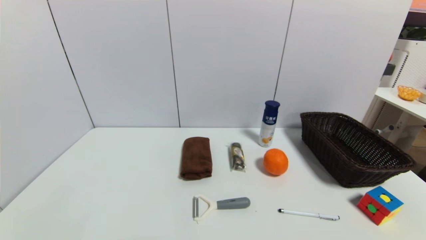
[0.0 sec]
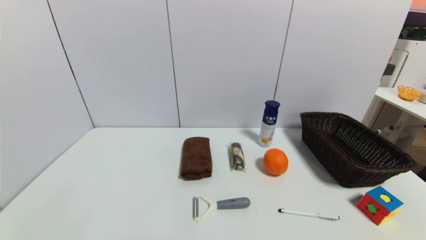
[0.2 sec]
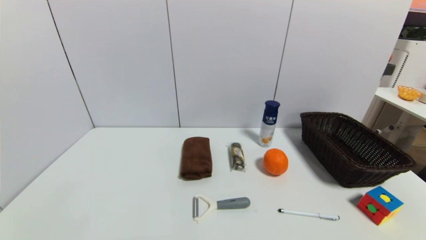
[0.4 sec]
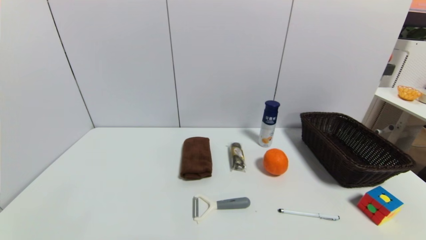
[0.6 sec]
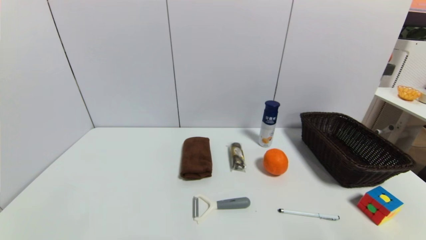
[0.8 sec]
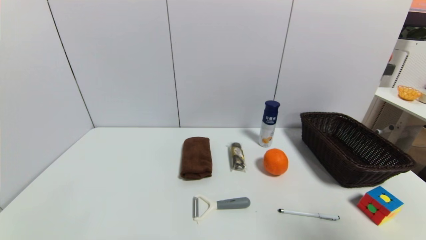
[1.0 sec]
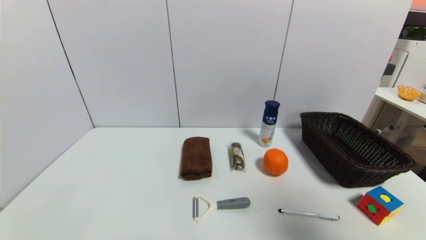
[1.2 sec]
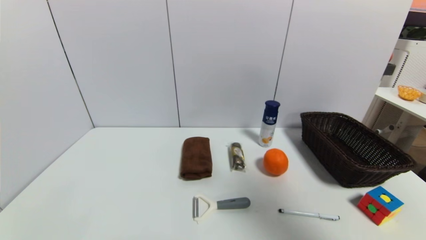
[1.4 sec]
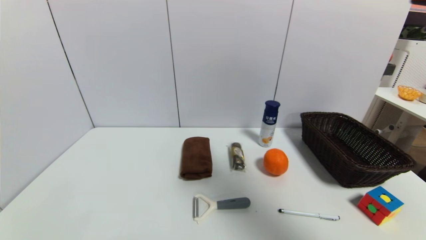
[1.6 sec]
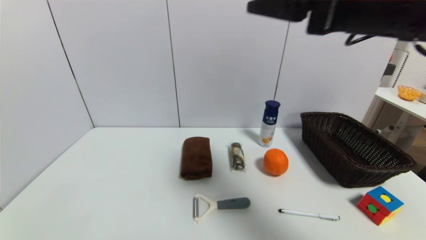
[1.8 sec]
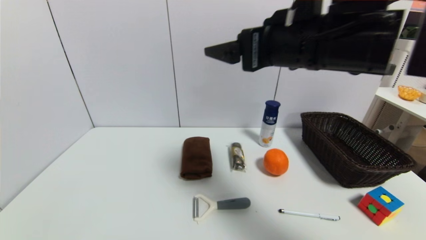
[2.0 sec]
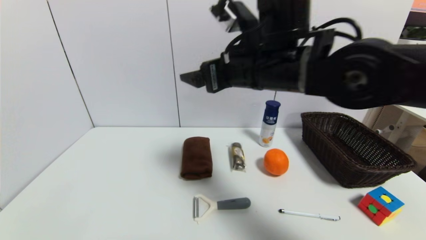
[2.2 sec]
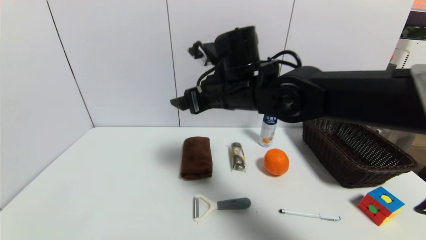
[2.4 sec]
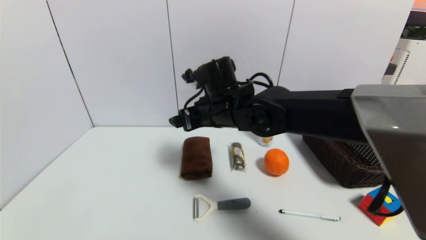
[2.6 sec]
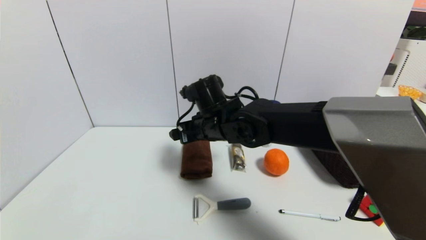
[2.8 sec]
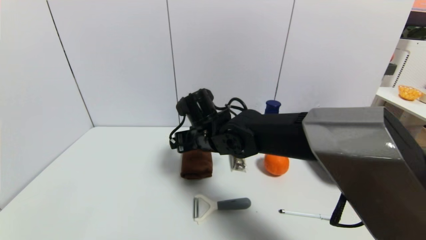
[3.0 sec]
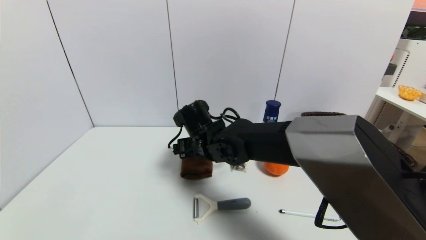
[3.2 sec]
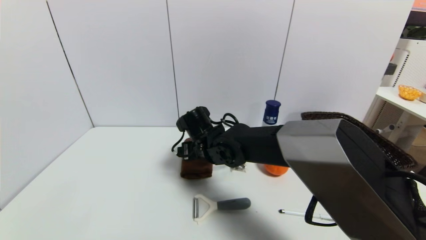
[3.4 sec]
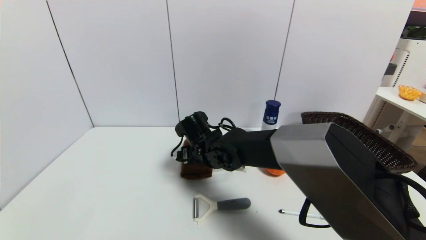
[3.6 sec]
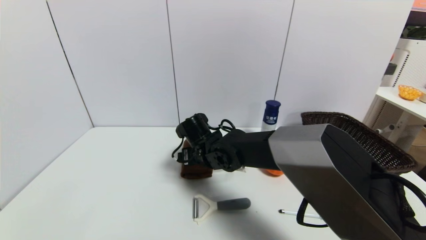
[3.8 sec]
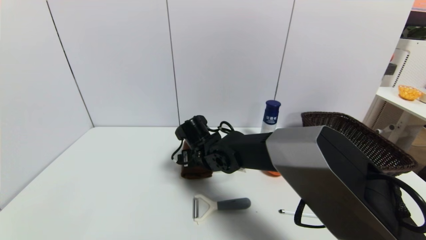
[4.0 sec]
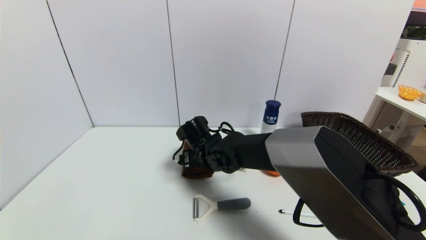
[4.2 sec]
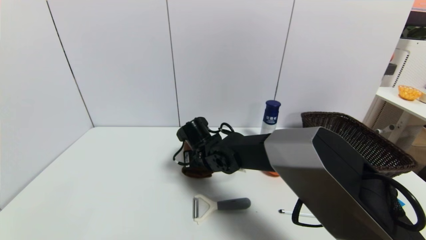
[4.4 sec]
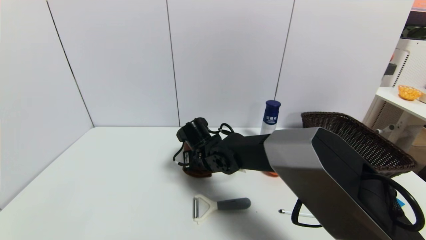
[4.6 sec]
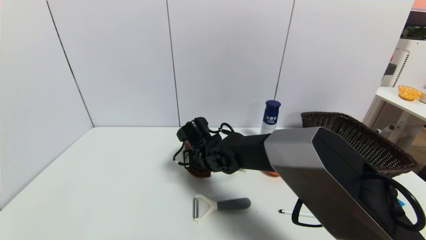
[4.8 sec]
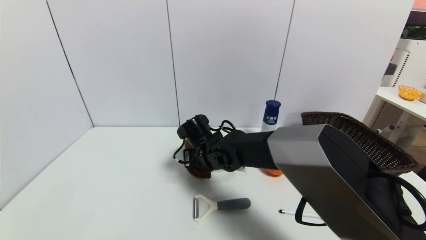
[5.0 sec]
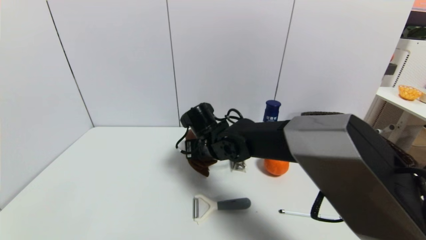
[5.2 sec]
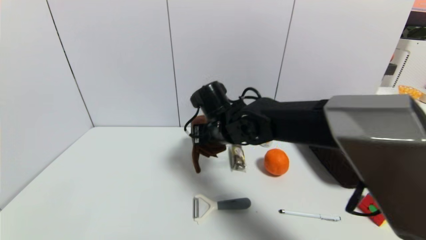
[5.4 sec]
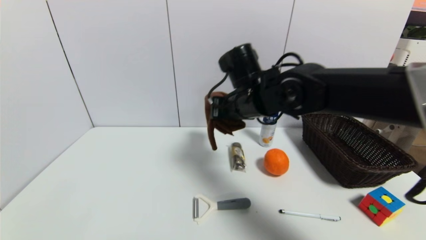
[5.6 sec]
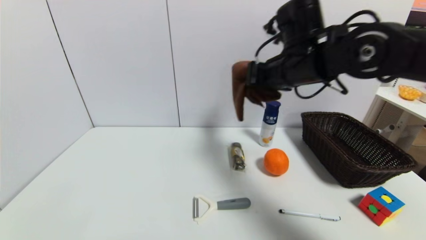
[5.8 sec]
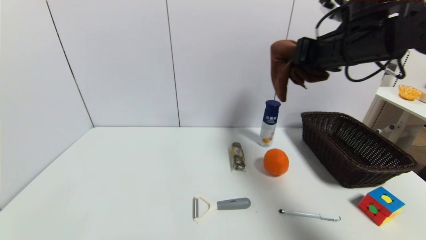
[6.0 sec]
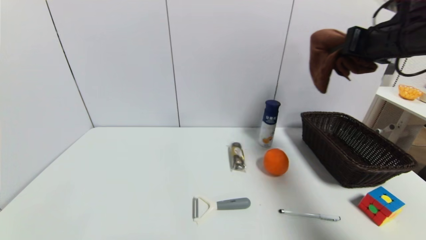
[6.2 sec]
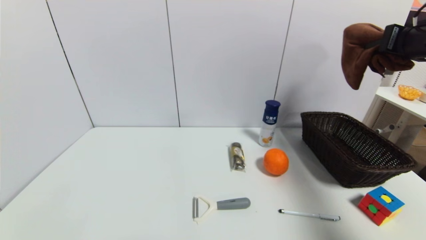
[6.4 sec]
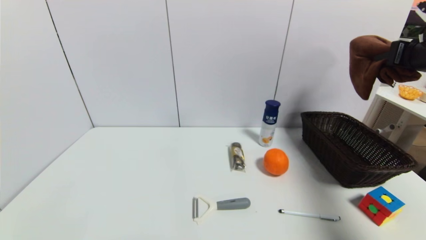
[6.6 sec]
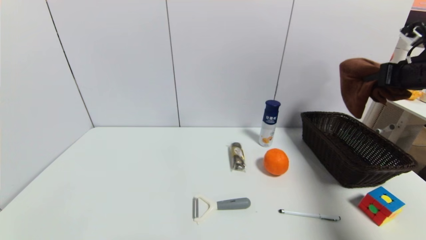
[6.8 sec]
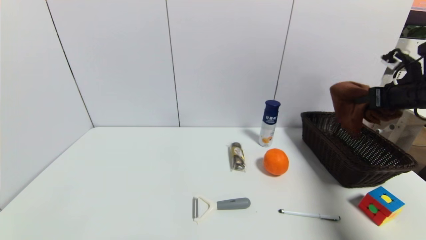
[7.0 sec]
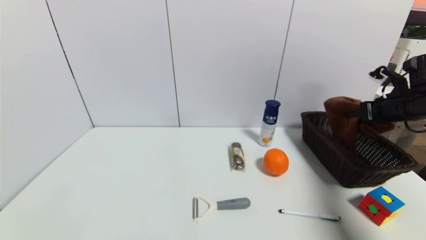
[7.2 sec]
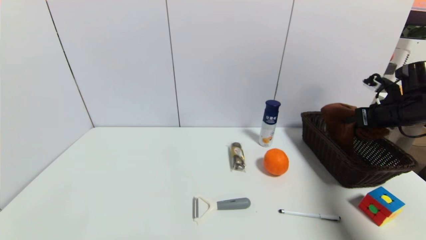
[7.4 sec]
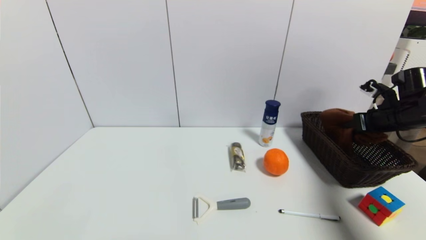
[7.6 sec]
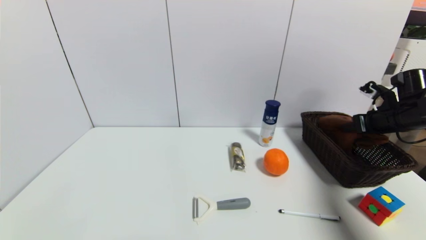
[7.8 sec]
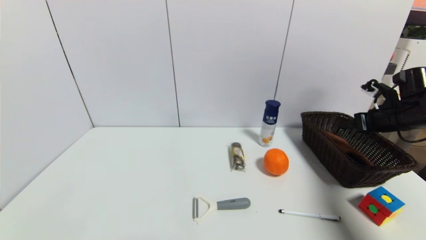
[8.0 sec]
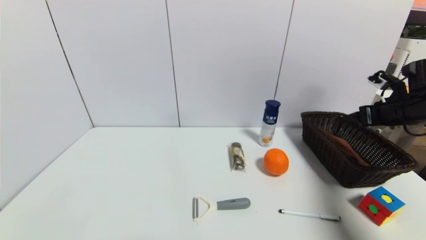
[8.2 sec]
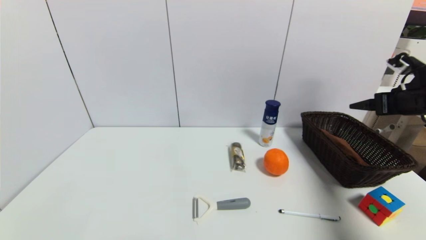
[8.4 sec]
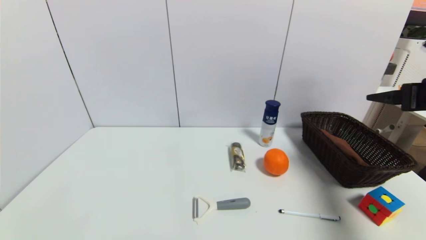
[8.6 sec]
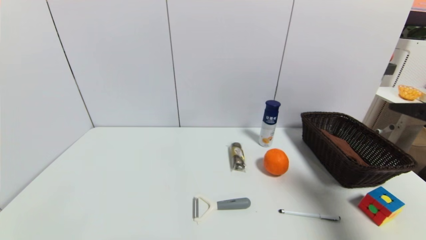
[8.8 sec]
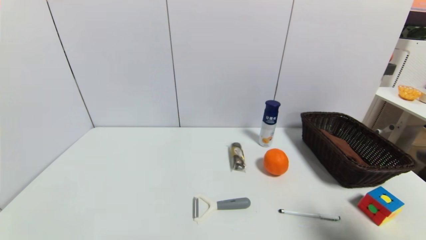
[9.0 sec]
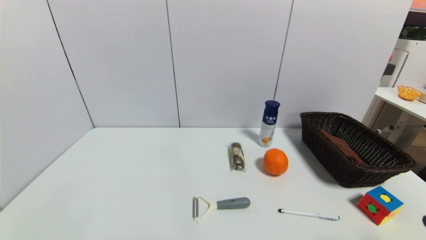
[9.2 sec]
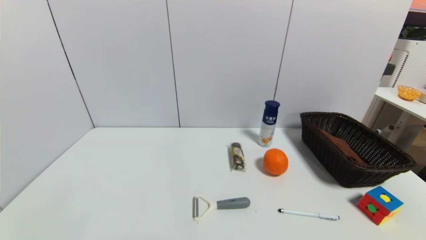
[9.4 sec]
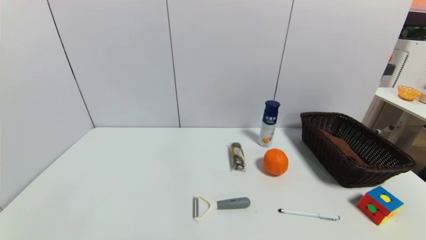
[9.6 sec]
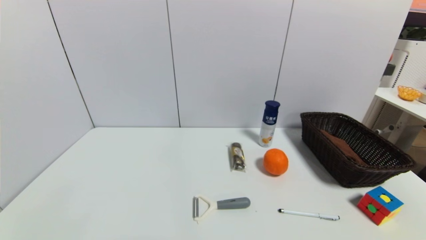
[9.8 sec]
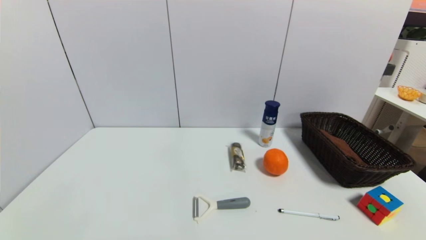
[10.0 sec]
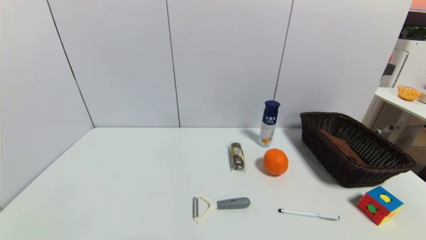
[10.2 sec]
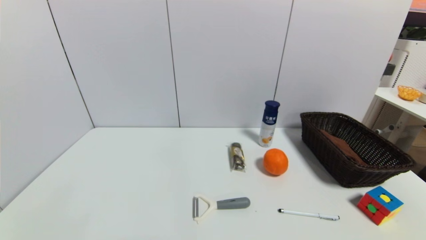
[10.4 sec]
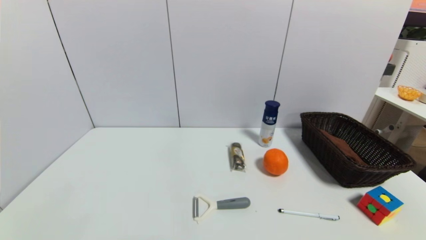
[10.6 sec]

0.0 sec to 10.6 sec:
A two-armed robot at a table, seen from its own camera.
Task of the whole recording: use a gripper to pick the target object and place on the brown basket.
Step, 0.0 sec to 4.8 sec: Grasp the brown towel with the right gripper.
Step, 5.0 sec to 8.0 sec: Place the brown towel into the basket with the right gripper.
0.0 sec to 1.6 sec: The right gripper is displaced upward and forward by roughly 40 cm.
1.6 sec to 3.0 sec: The right gripper shifts some 40 cm downward, to the left and forward.
3.0 sec to 4.6 sec: The right gripper moves downward, approximately 10 cm, and closes up.
4.6 sec to 6.0 sec: The right gripper goes approximately 35 cm to the right and upward, and closes up.
6.0 sec to 7.6 sec: The right gripper is displaced to the right and downward by about 25 cm.
7.6 sec to 9.0 sec: The right gripper travels backward by some 30 cm, and opens up.
9.0 sec to 10.6 sec: The right gripper is displaced downward and backward by roughly 20 cm.

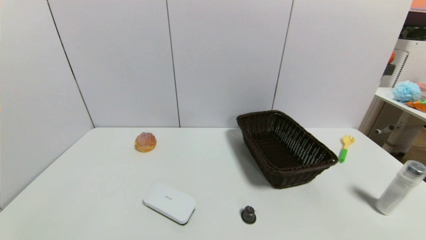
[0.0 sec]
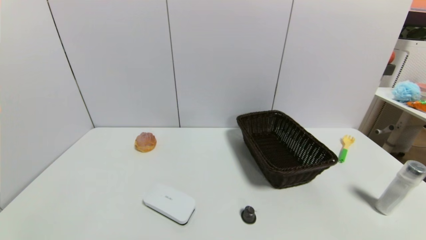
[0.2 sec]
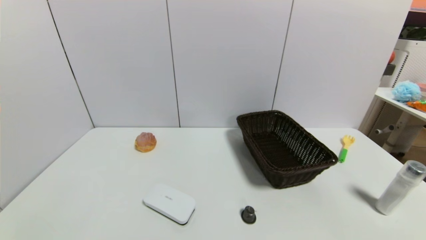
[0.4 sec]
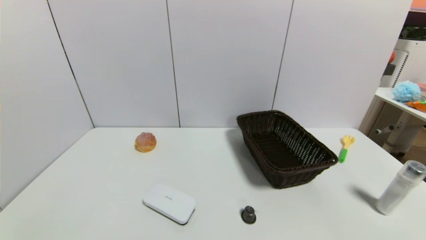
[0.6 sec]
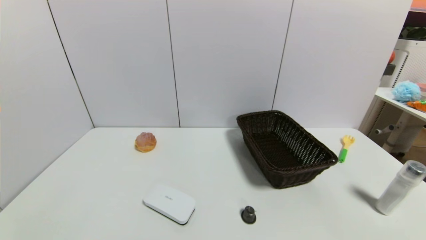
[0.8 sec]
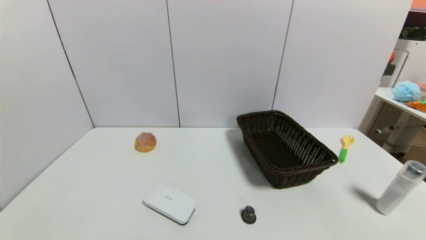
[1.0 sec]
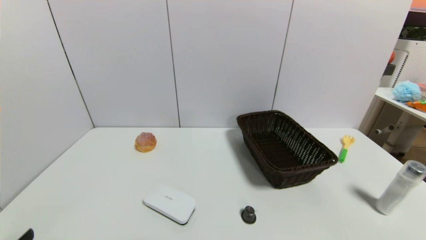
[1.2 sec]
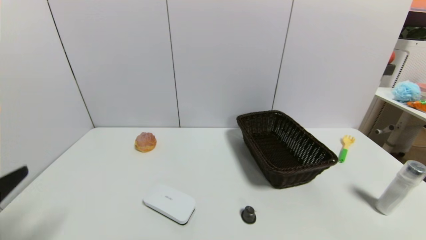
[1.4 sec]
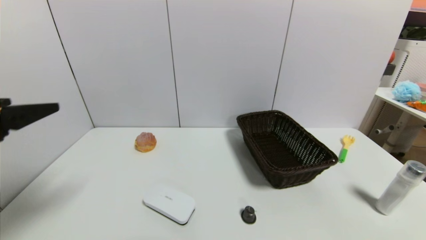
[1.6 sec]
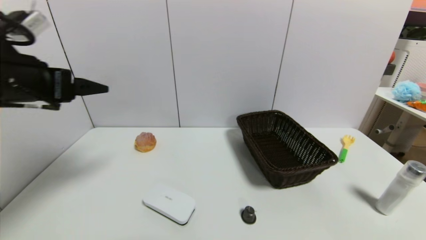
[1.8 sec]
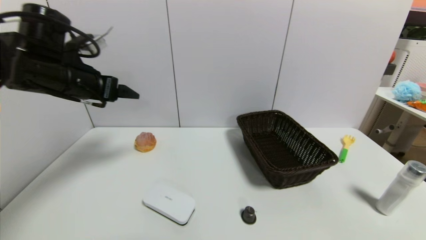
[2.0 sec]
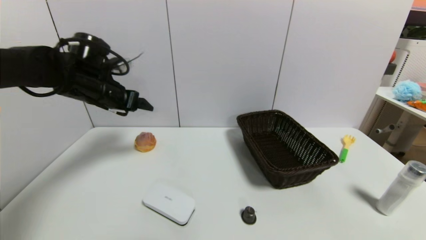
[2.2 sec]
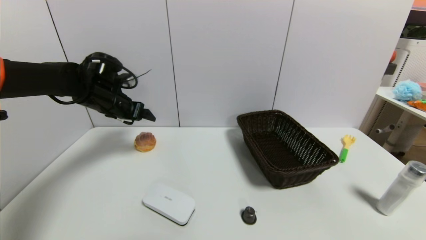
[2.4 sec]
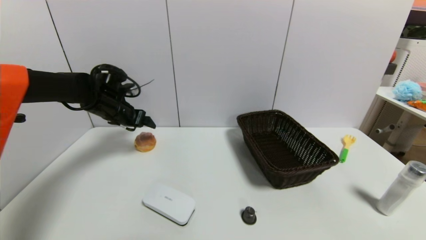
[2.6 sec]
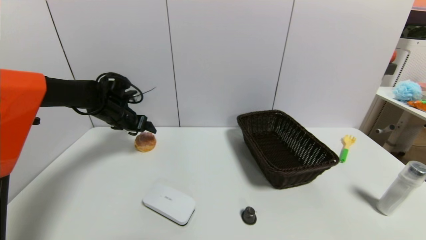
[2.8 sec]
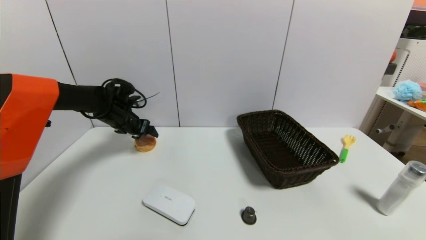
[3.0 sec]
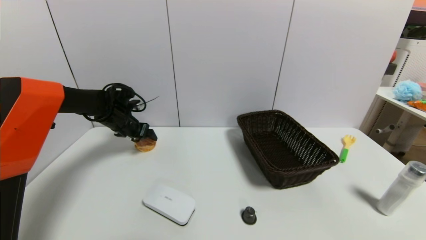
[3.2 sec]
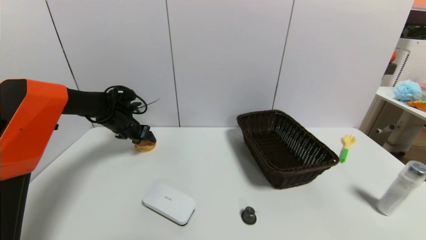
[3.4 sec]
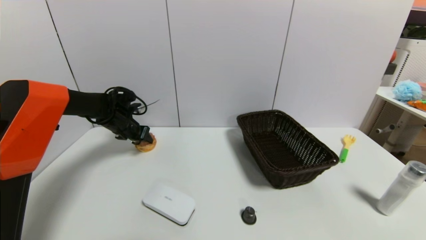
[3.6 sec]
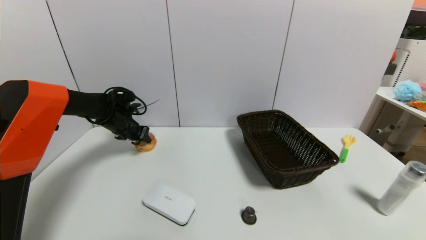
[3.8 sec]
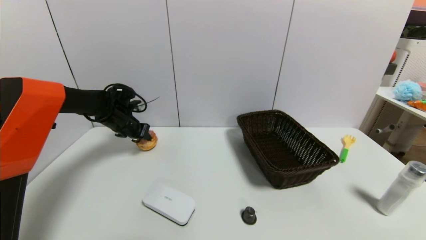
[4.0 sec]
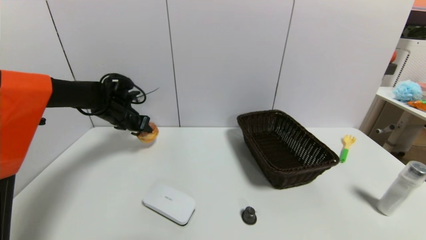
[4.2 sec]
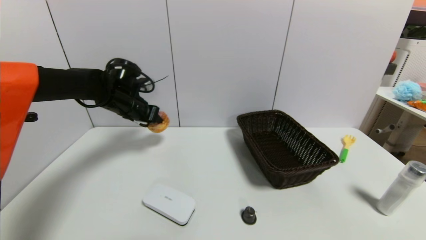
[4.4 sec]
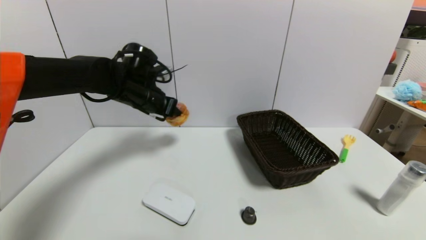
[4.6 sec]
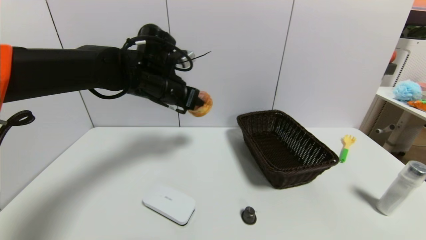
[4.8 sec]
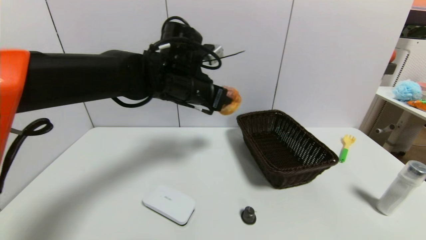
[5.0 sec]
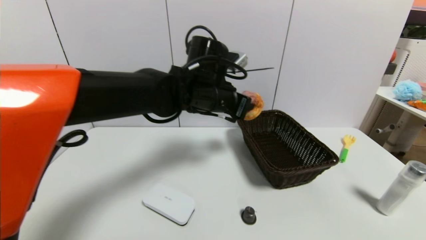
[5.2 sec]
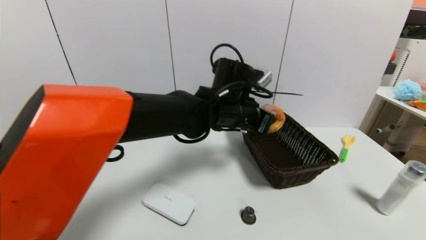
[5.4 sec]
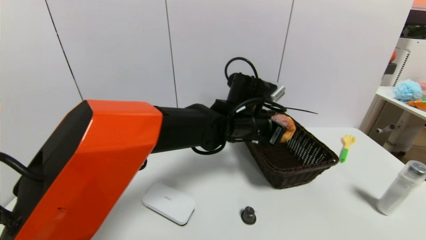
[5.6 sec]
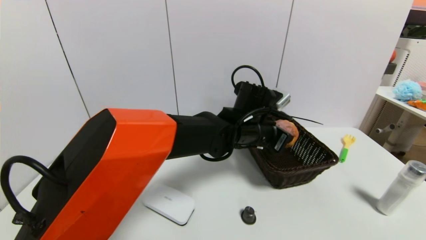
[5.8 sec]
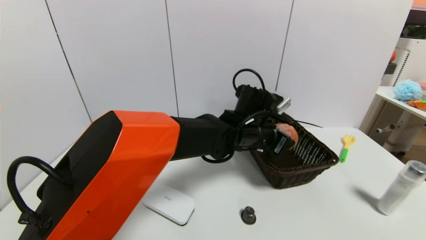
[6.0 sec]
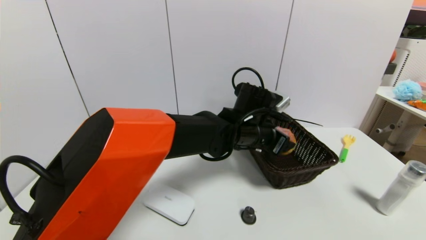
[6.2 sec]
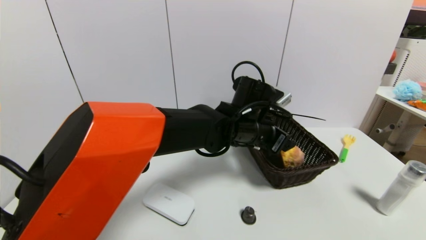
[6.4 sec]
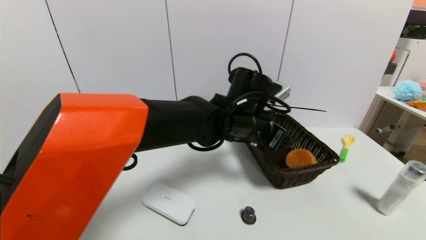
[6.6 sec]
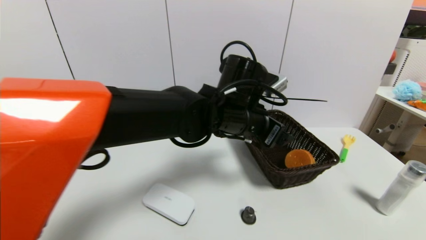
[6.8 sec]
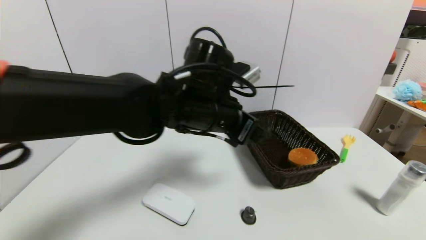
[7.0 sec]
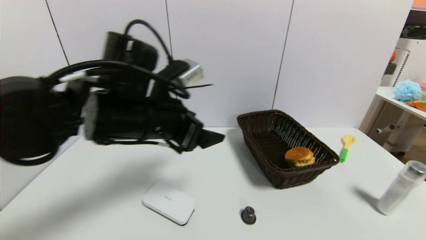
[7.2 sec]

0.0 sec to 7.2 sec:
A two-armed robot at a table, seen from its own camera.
Task of the whole recording: use a gripper to pick the target object and place on the brown basket.
Step, 0.0 sec to 3.8 sec: Grasp the round bread with the left gripper.
Step, 4.0 sec to 7.0 sec: Place the round bread into the basket with the left gripper.
0.0 sec to 1.4 sec: The left gripper shifts some 20 cm upward and forward.
1.4 sec to 2.8 sec: The left gripper goes approximately 35 cm forward.
2.8 sec to 4.4 sec: The left gripper goes some 5 cm to the right, and closes up.
4.4 sec to 5.8 sec: The left gripper heads to the right, covering approximately 30 cm.
5.8 sec to 7.2 sec: The left gripper travels to the left and backward by some 25 cm, and opens up.
